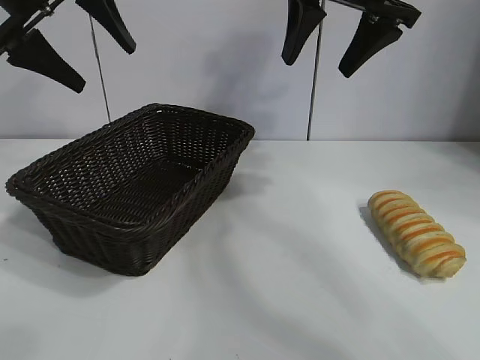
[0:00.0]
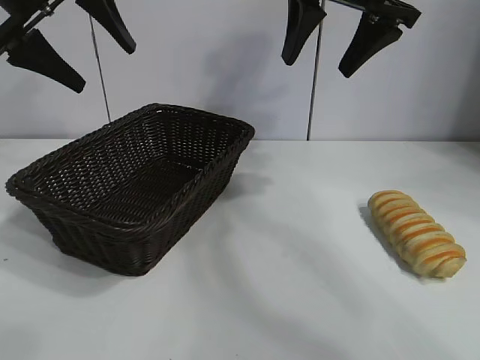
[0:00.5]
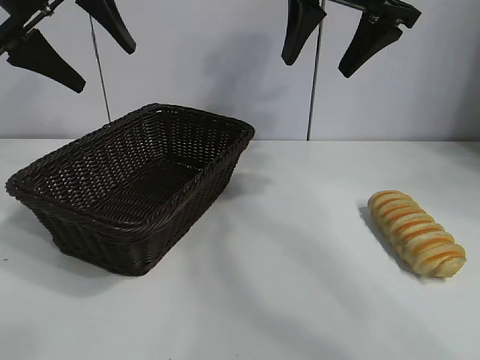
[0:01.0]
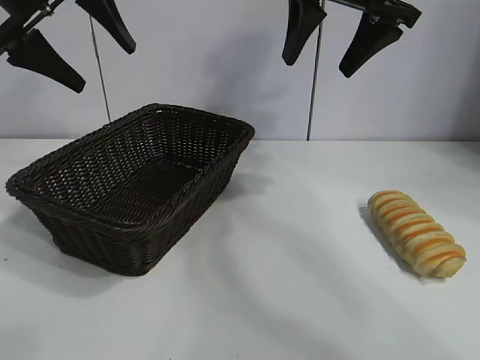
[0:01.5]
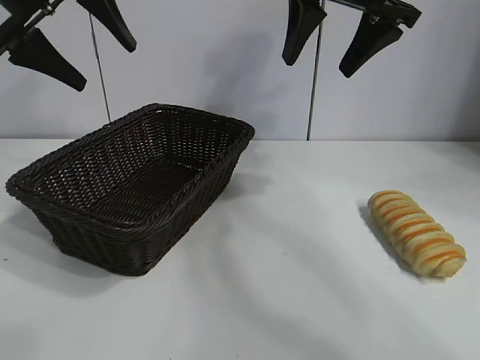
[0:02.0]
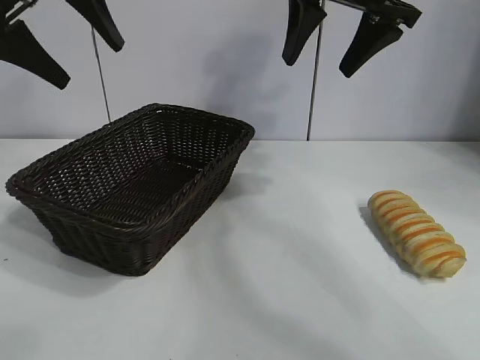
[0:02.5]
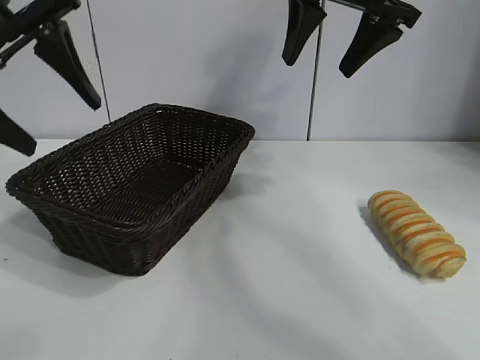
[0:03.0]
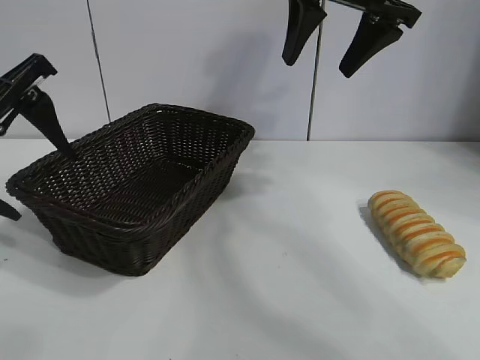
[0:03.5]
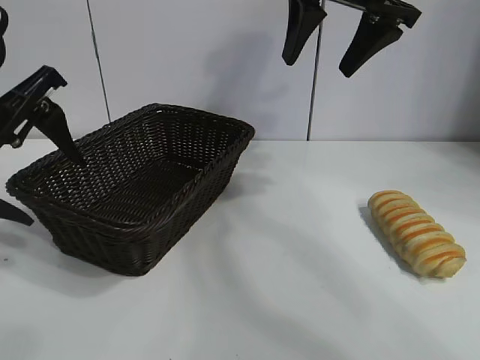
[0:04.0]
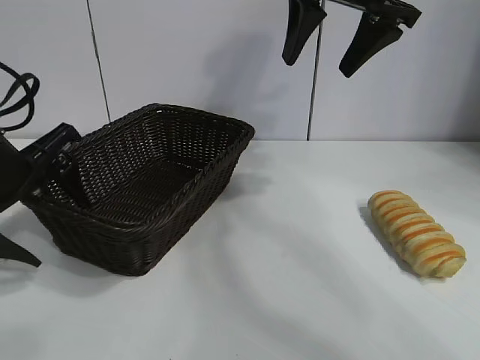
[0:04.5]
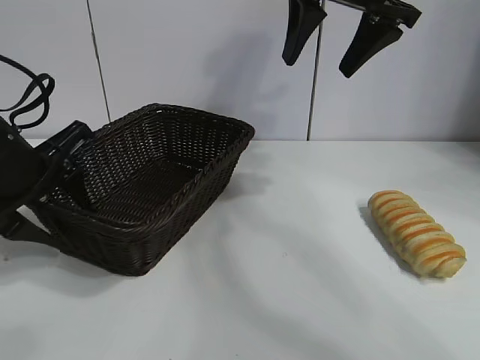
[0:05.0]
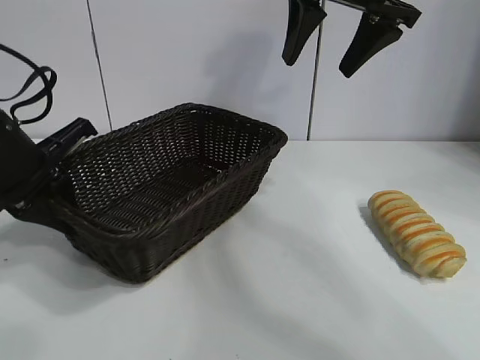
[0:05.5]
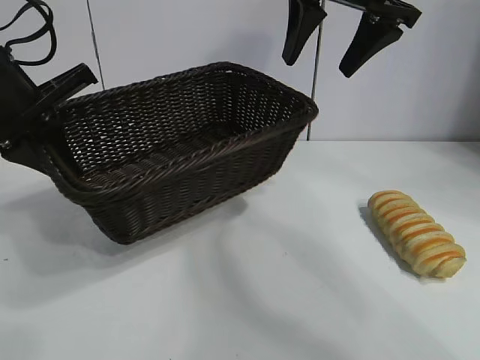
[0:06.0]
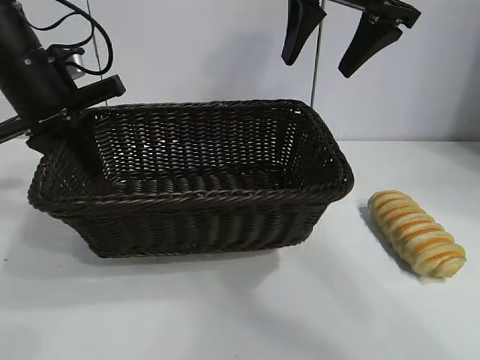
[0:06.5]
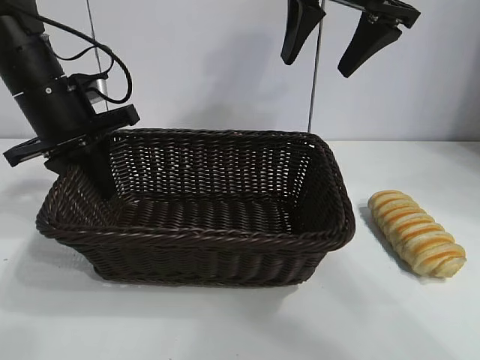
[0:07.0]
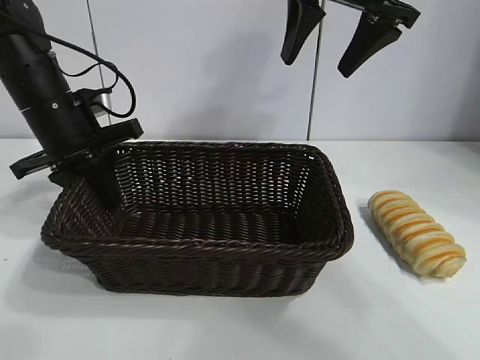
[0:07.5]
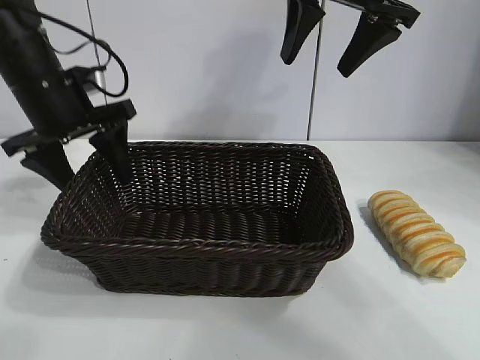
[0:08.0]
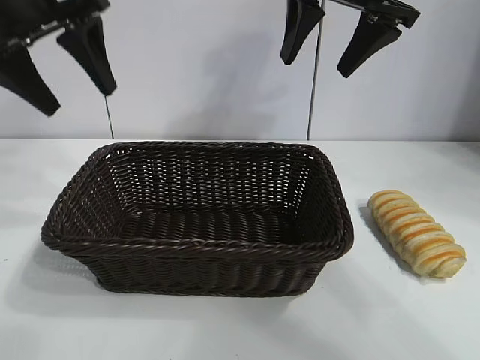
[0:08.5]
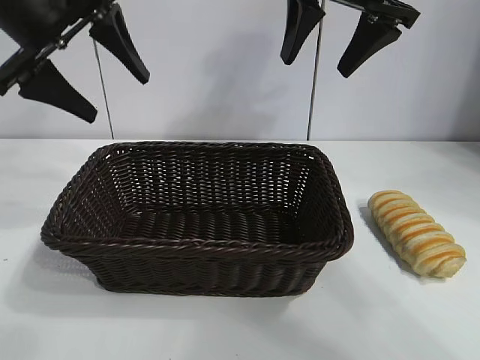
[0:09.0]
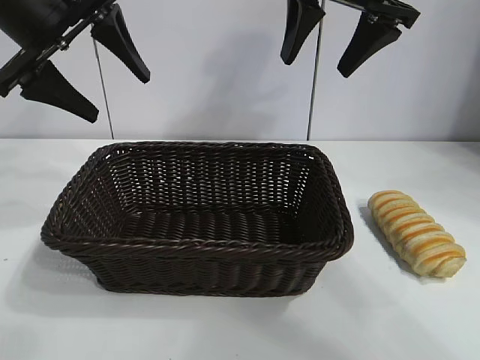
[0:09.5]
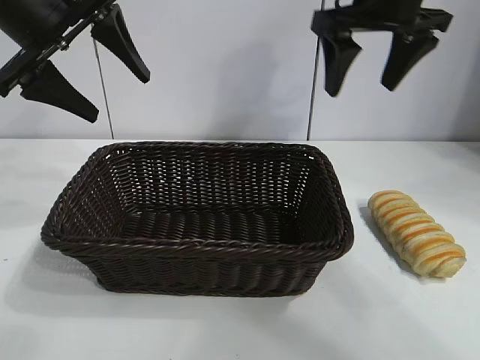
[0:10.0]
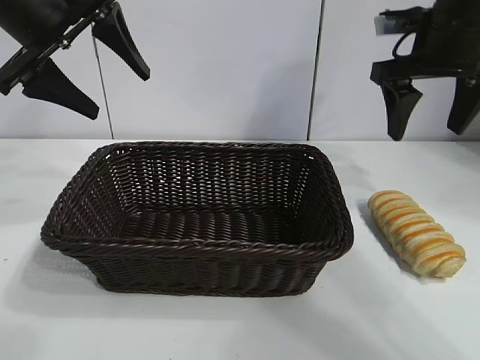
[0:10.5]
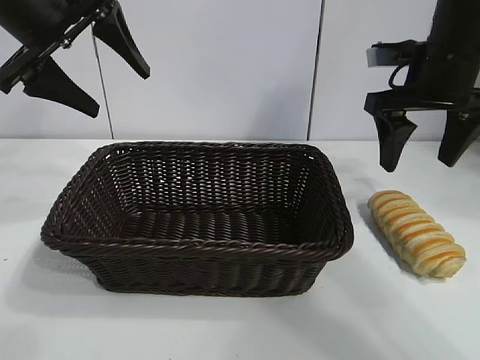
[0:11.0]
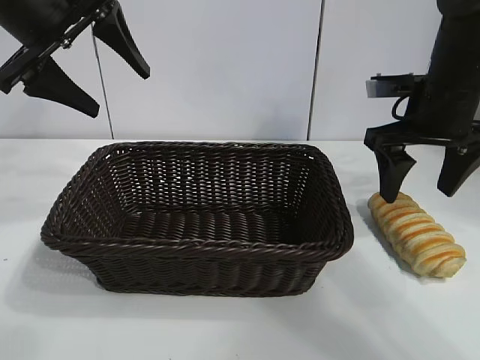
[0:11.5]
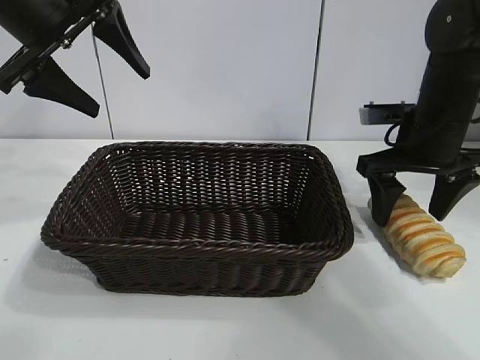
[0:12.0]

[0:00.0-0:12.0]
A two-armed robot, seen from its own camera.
Task of the whole recording: pick up the long bread and put it into the basket.
Step, 0:02.0 to 0:05.0: Grasp the basket with the left gripper.
Step, 0:05.5 to 0:07.5: Place the basket in the center of the table with the left gripper.

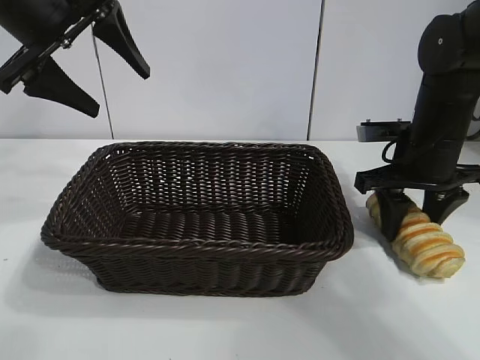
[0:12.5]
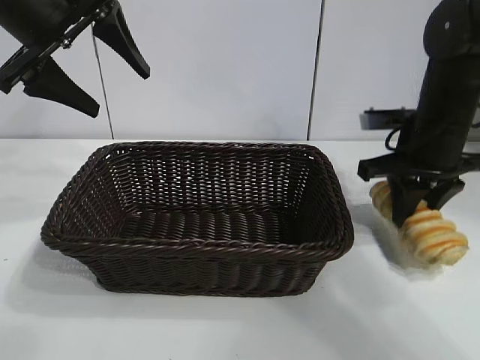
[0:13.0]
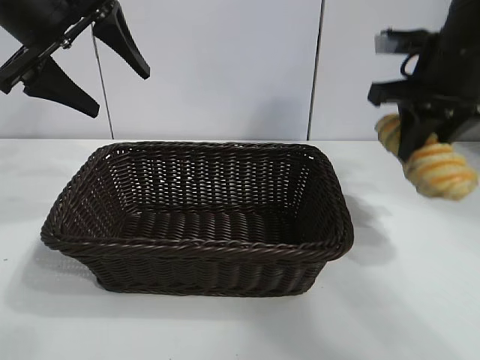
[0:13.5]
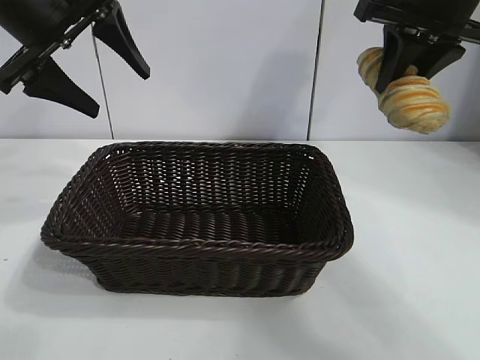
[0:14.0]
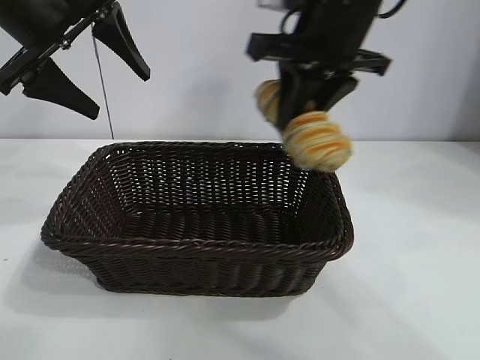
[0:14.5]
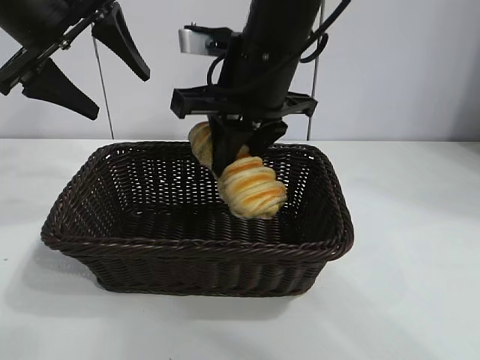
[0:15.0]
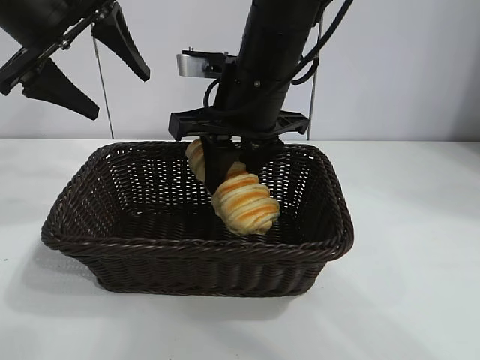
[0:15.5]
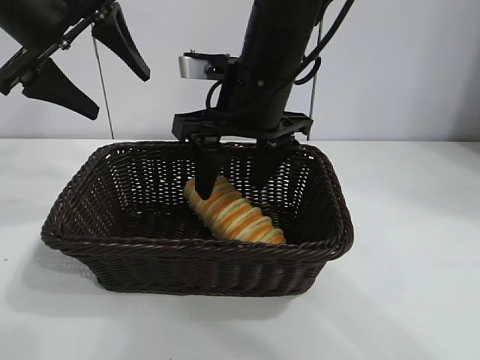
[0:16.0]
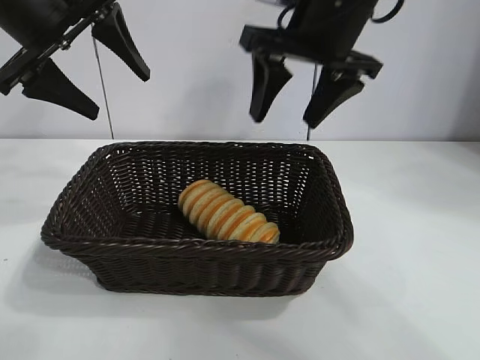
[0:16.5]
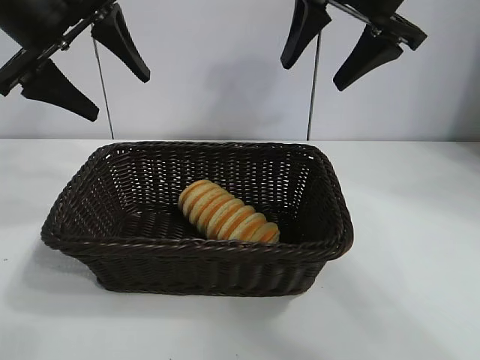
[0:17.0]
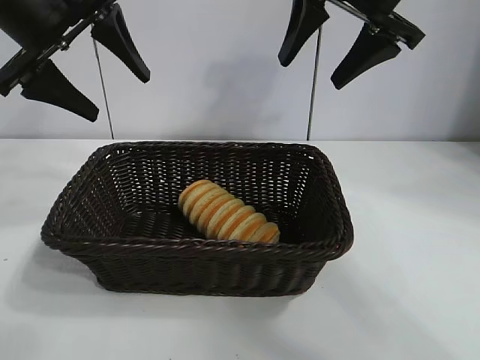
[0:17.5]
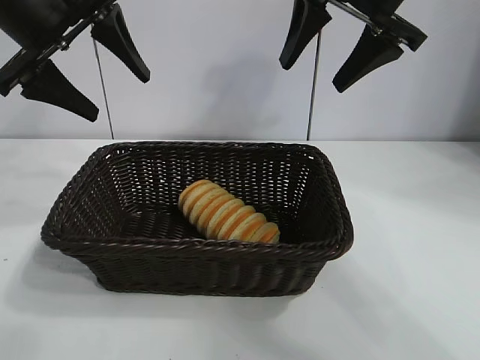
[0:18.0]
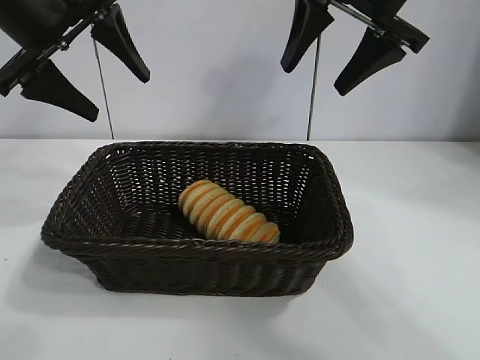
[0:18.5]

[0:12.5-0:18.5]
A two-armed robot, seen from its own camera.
Task of the whole recording: pick up the long bread and put it into the basket.
Step, 0:13.0 to 0:16.0: Place the long bread in the basket with right gripper.
